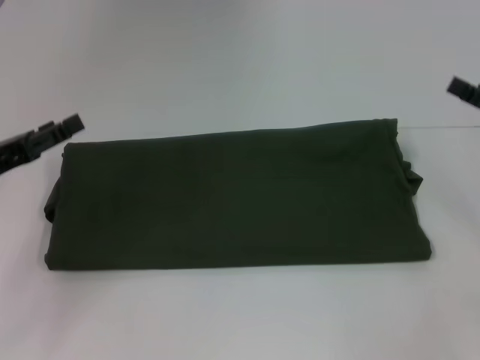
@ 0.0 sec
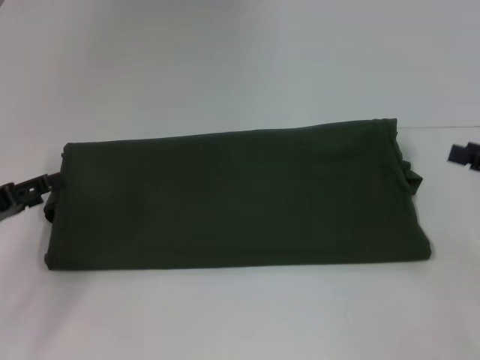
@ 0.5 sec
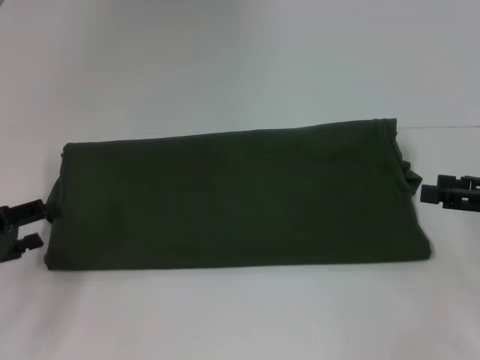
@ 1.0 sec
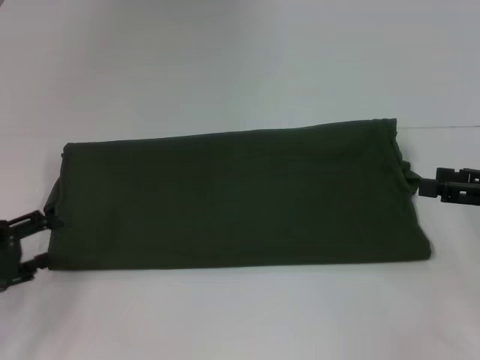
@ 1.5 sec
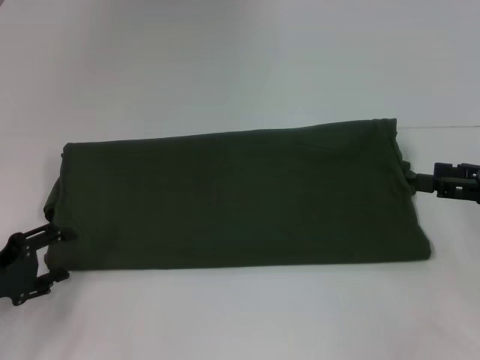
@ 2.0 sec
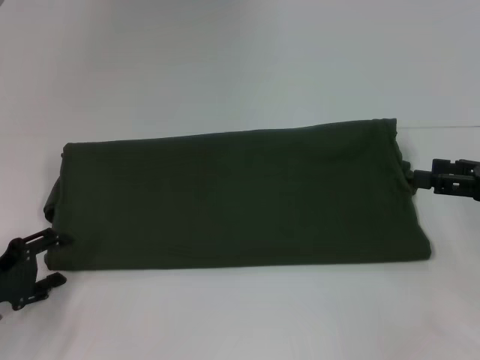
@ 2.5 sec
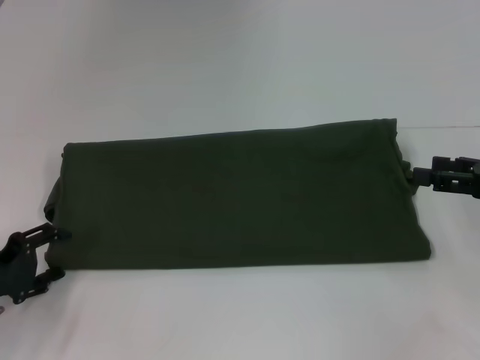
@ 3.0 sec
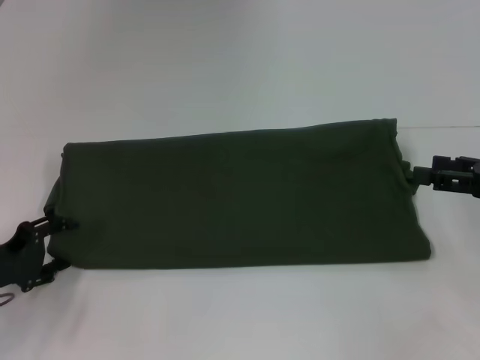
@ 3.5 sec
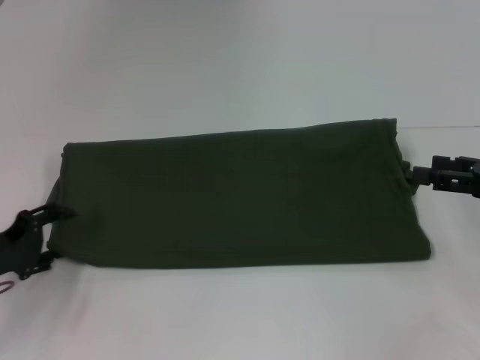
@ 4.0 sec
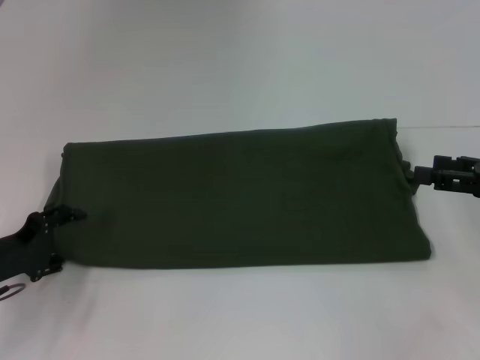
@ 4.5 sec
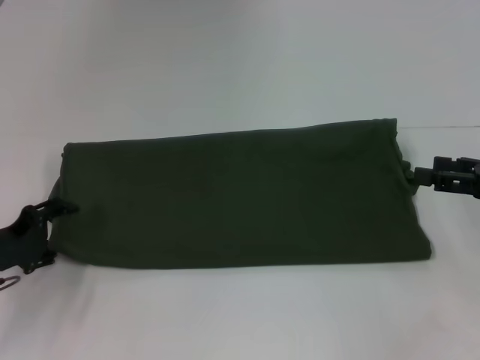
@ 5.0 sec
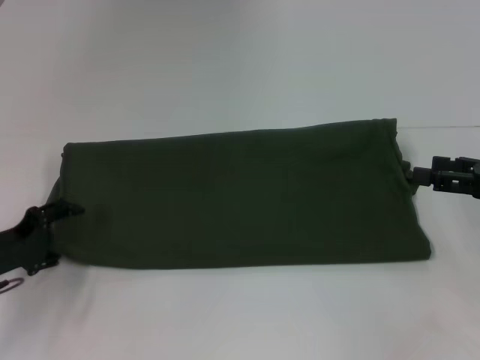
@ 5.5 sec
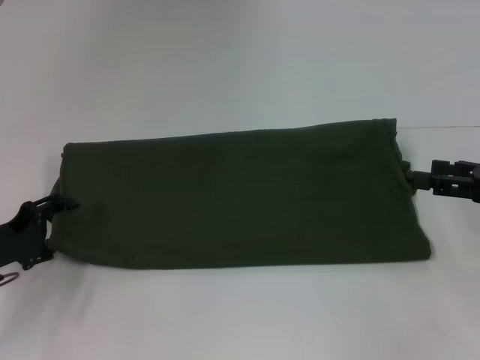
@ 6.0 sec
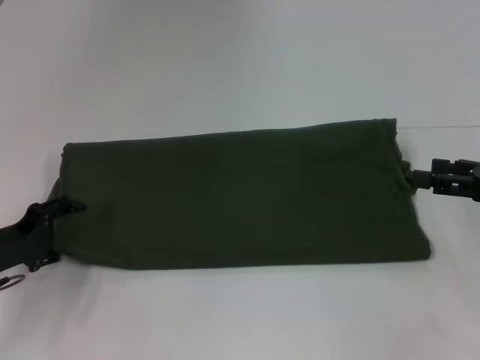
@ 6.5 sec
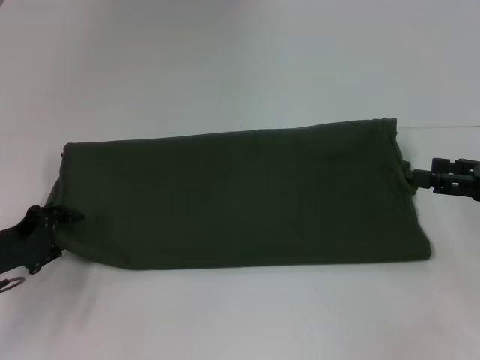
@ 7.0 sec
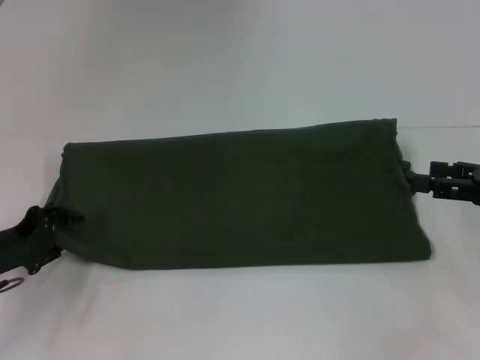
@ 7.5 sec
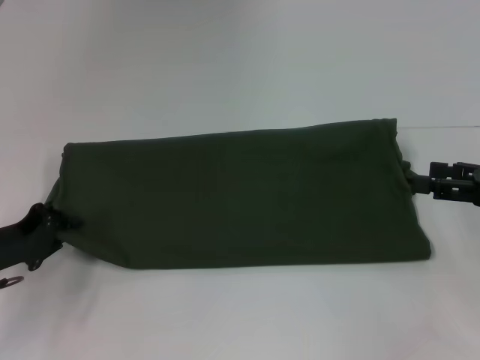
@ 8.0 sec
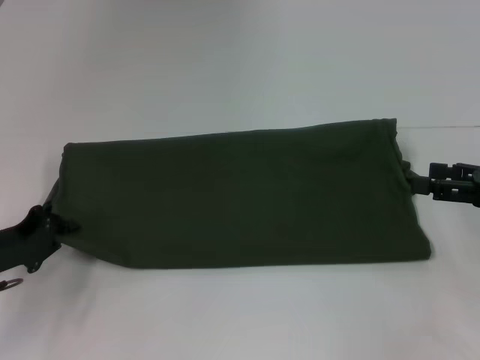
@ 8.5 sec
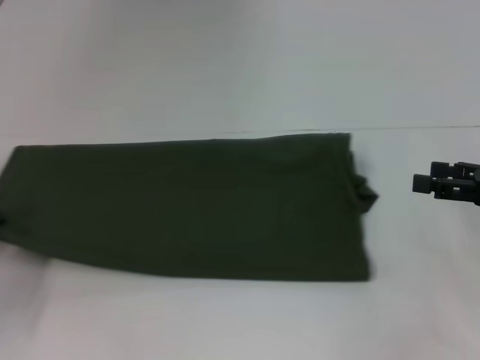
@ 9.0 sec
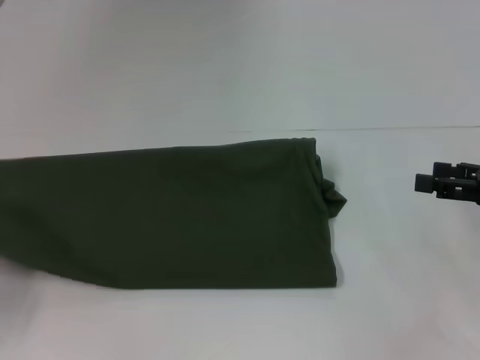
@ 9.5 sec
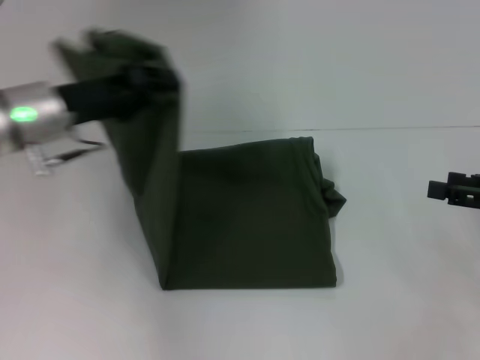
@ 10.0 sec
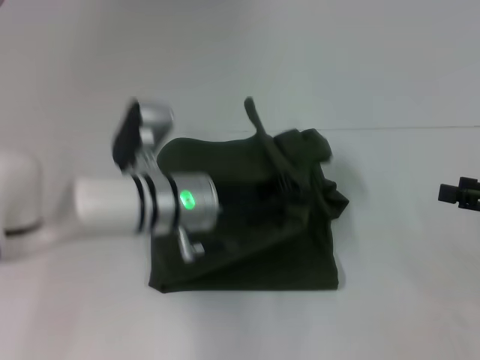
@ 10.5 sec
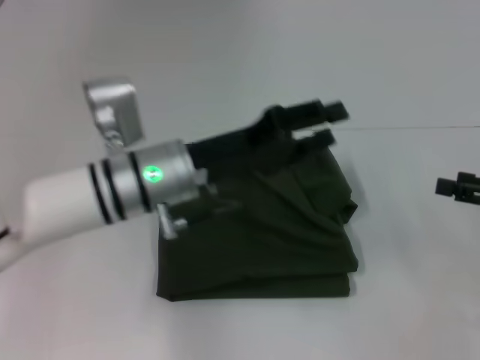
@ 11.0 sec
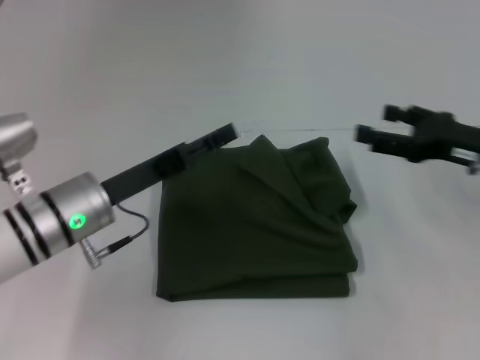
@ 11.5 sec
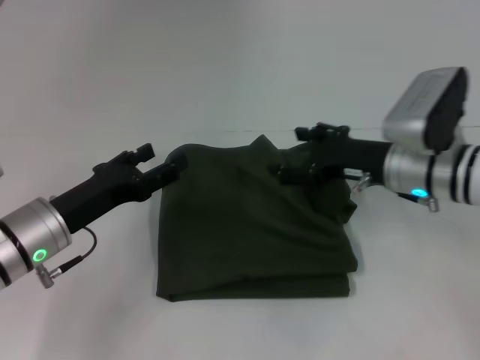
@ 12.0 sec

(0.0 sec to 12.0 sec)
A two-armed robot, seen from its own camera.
Step, 0.0 sec - 10.5 sec: Fold the clothes with your left hand.
0.0 sec - 2.0 sec: The left gripper moves downward, about 5 cm.
2.0 sec - 4.0 sec: The grippers make only small movements.
4.0 sec - 6.0 sec: The two grippers keep their place.
6.0 sec - 8.0 sec: The left gripper closes.
8.0 sec - 10.0 sec: The left gripper shifts roughly 15 cm upward, to the right and forward.
10.0 sec - 12.0 sec: The left gripper shifts some 10 cm downward and backward, reaches approximately 15 cm to the right, then returns, and opens, while the right gripper is displaced to the left and forward by approximately 20 cm.

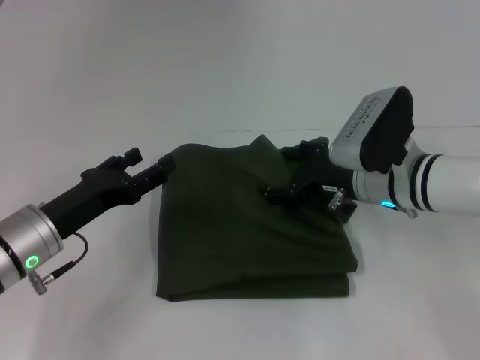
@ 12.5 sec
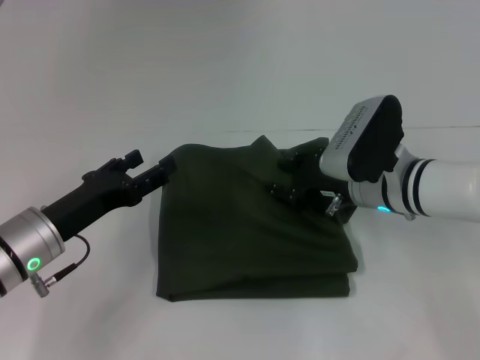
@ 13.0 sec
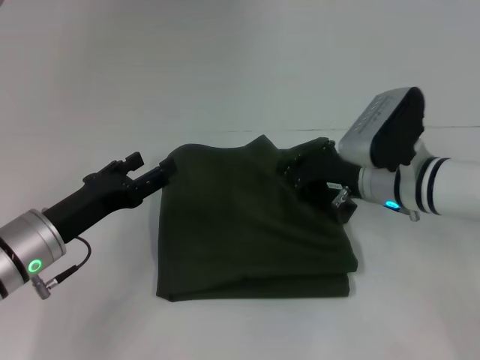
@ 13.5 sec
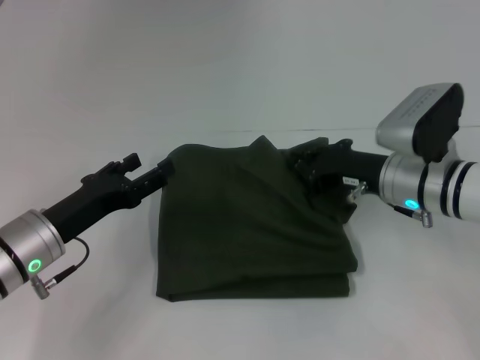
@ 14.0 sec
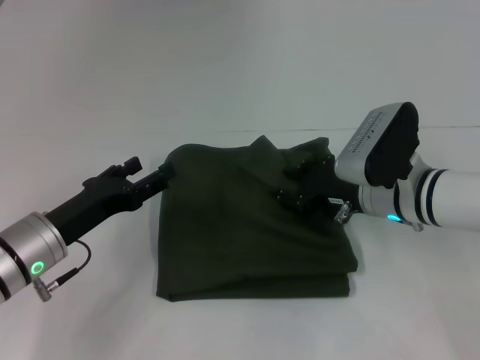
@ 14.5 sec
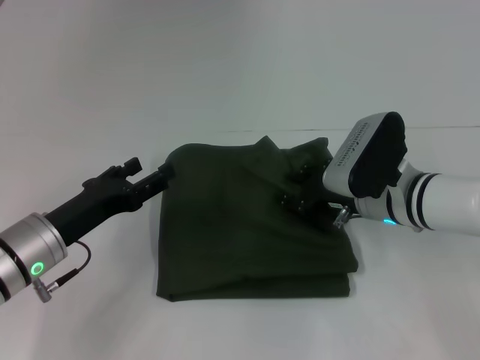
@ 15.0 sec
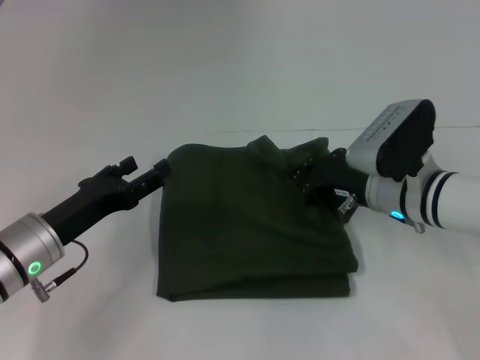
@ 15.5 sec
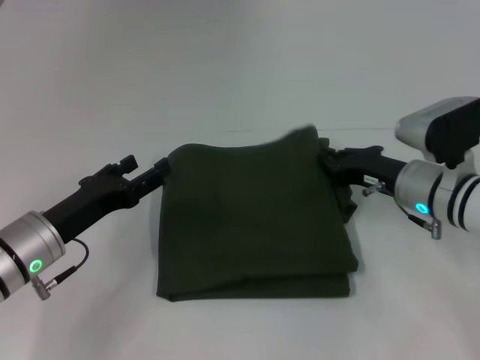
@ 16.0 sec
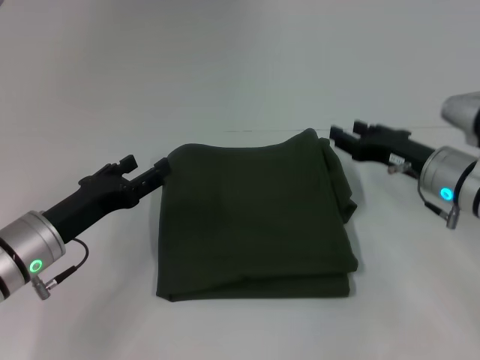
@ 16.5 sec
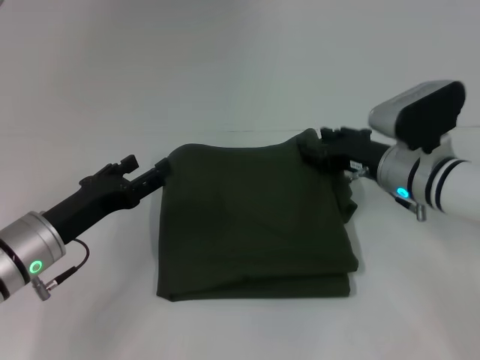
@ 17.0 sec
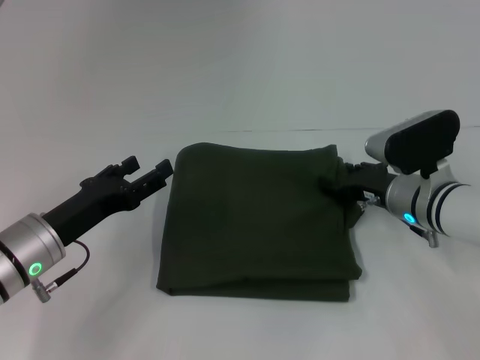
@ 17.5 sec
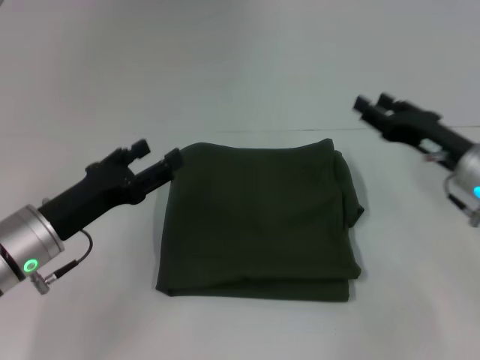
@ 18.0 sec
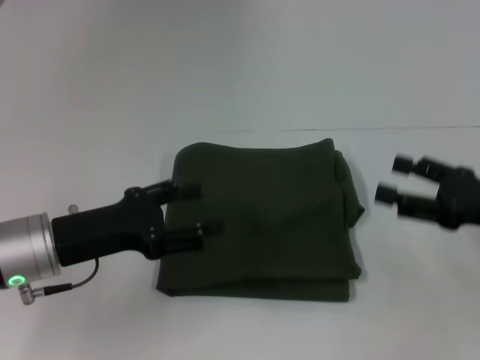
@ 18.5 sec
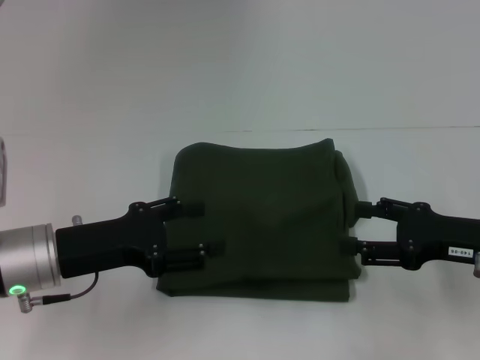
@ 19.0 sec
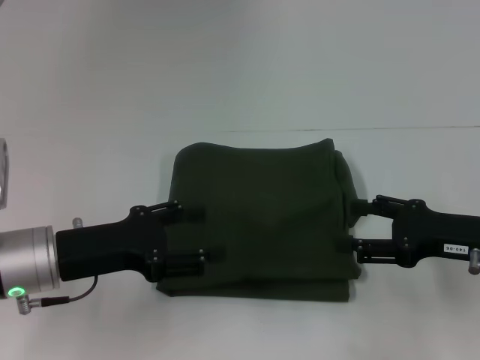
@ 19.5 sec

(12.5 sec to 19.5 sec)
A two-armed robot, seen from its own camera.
12.5 sec - 14.5 sec: The right gripper closes up.
14.5 sec - 16.0 sec: The right gripper closes.
16.0 sec - 17.5 sec: The right gripper opens its fingers.
17.5 sec - 19.5 sec: The right gripper heads backward and to the right, covering approximately 10 cm, and opens.

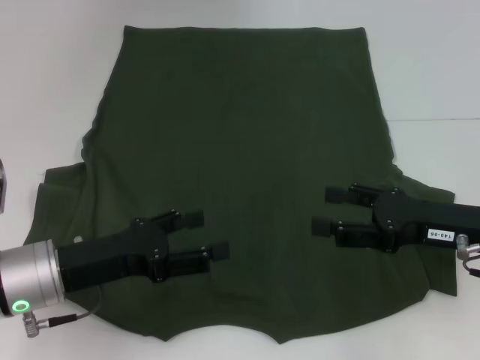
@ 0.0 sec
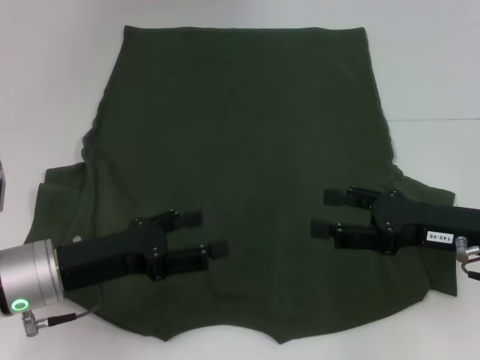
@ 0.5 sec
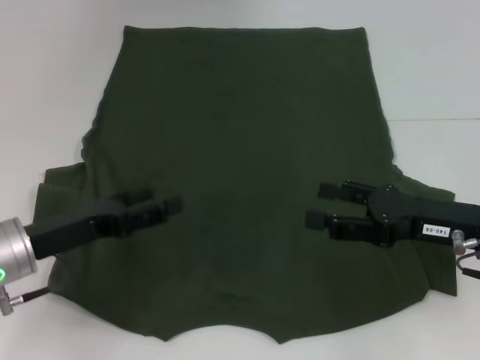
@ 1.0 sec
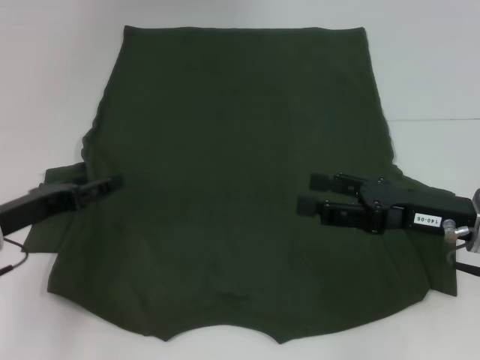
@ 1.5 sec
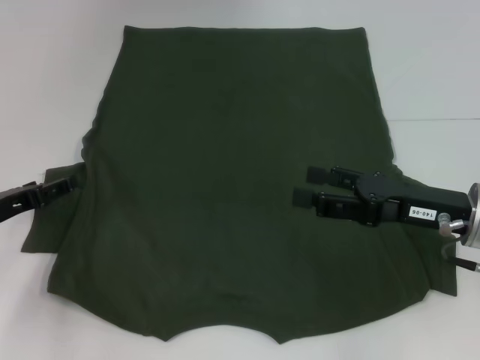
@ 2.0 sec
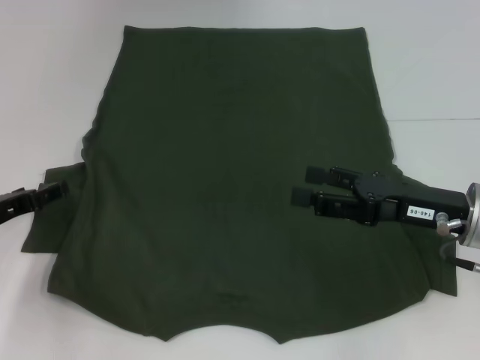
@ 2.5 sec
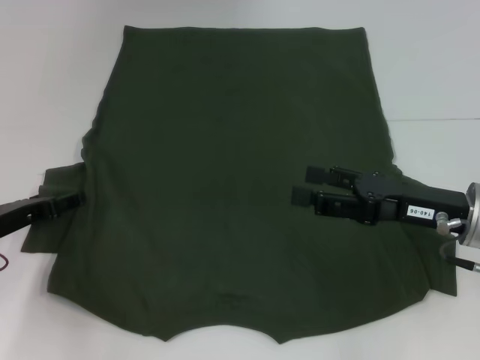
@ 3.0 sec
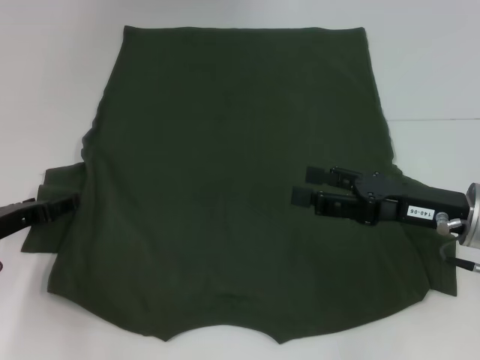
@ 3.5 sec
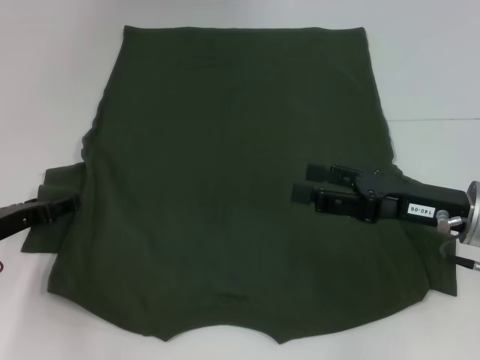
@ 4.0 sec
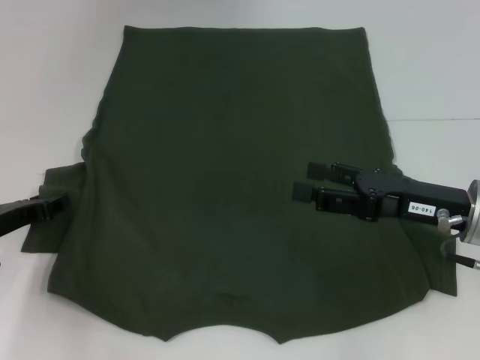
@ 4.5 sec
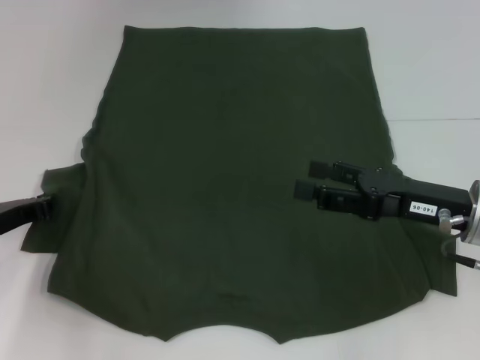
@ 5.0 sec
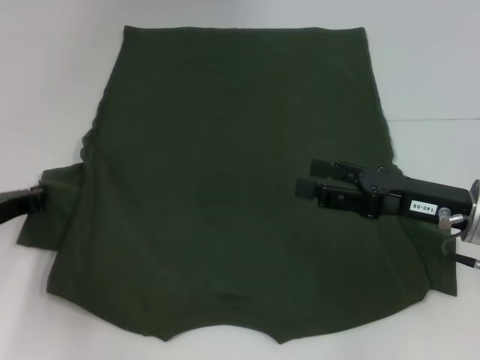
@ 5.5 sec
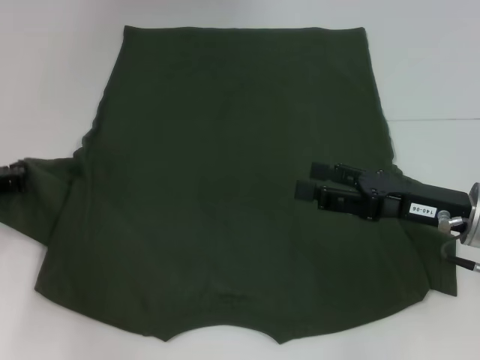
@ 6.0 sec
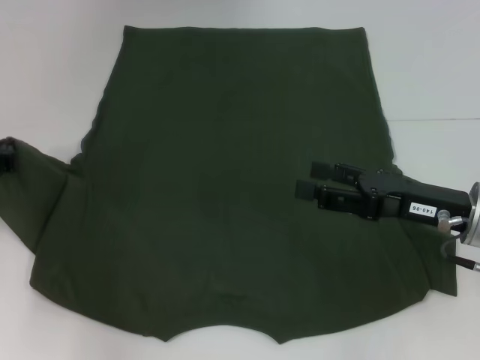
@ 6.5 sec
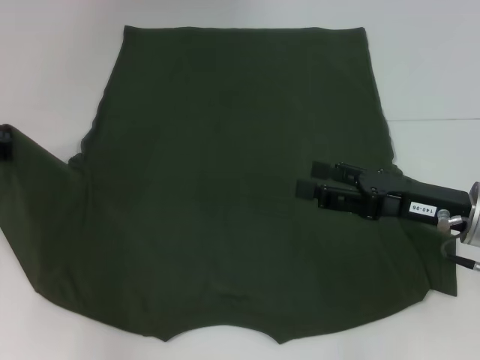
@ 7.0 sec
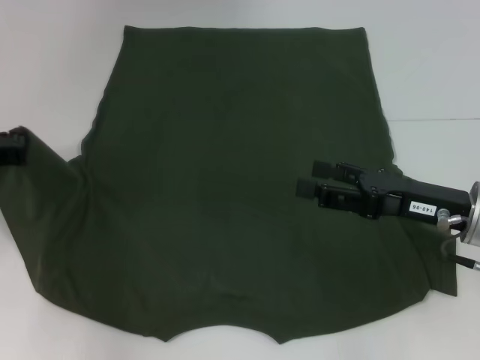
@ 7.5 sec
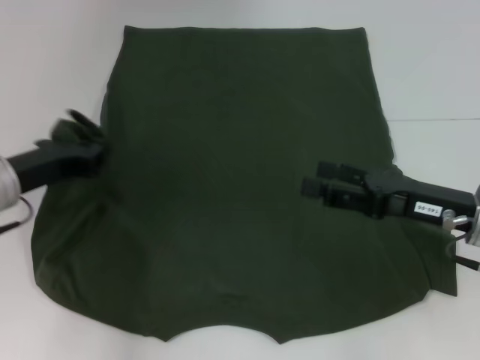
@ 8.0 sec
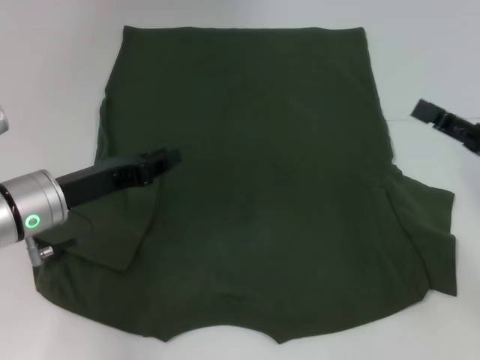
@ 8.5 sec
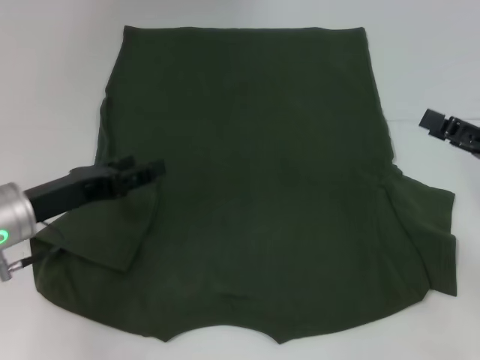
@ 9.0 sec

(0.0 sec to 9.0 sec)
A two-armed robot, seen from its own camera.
Step, 0.0 sec - 8.5 sec: Fold the bottom left sleeve with your left hand.
0.0 sec - 2.0 sec: The left gripper heads to the left and forward, covering some 10 cm.
2.0 sec - 4.5 sec: The grippers move only a little.
4.5 sec - 7.0 sec: The left gripper heads upward, covering approximately 5 cm, and closes.
7.0 sec - 9.0 sec: The right gripper heads to the right, covering roughly 10 cm. Meanwhile the left gripper shifts roughly 10 cm to the right and backward, and opens its fingers.
